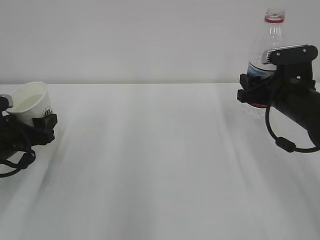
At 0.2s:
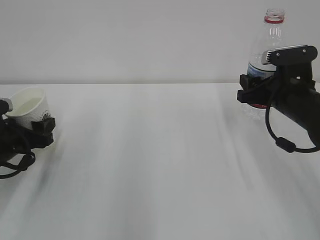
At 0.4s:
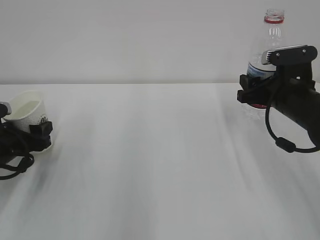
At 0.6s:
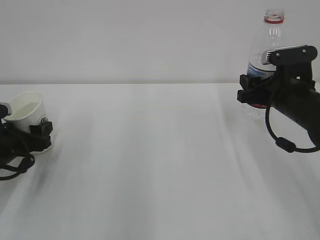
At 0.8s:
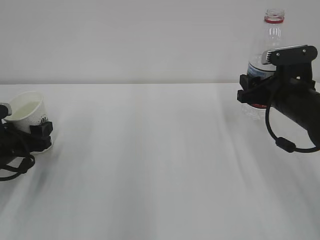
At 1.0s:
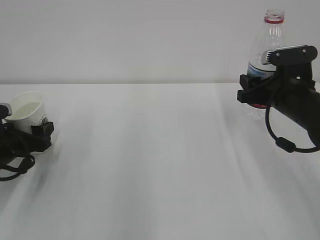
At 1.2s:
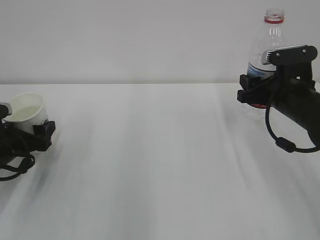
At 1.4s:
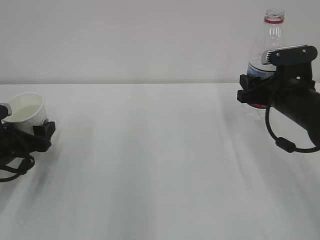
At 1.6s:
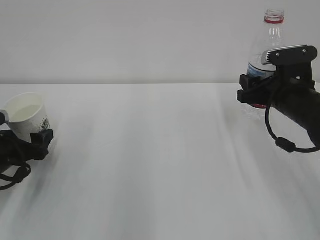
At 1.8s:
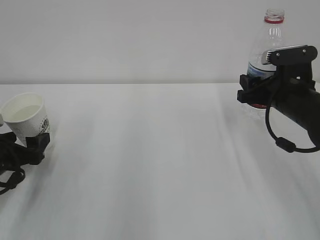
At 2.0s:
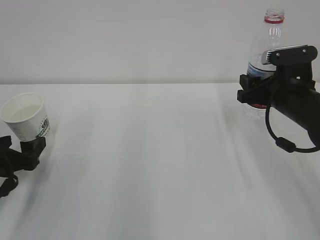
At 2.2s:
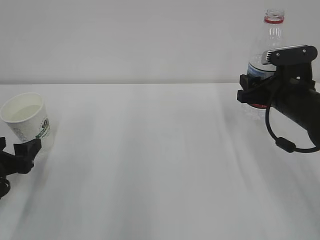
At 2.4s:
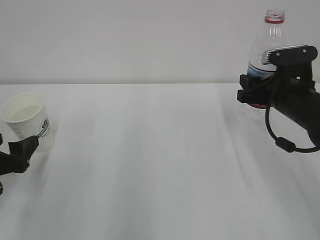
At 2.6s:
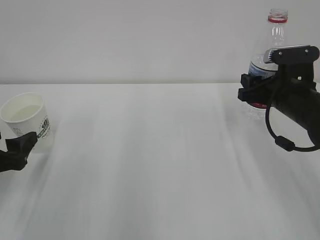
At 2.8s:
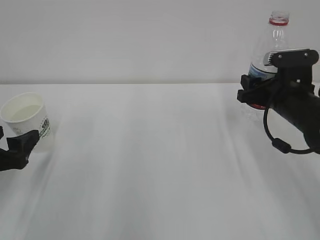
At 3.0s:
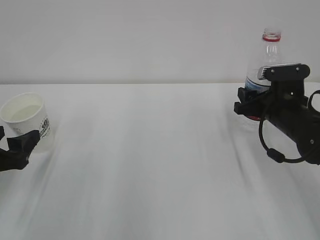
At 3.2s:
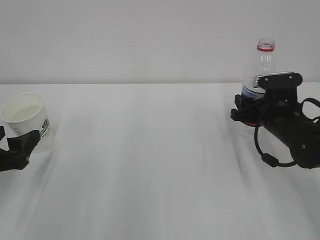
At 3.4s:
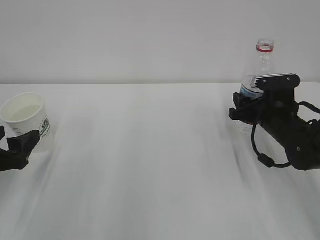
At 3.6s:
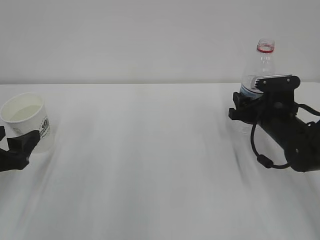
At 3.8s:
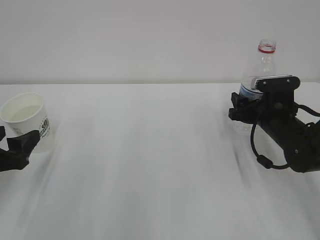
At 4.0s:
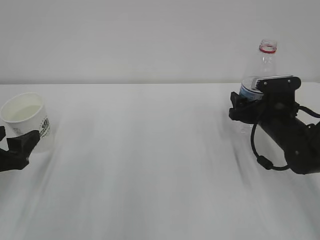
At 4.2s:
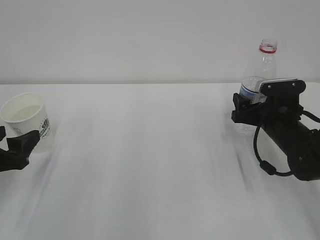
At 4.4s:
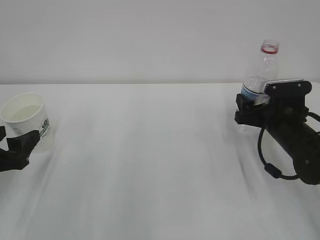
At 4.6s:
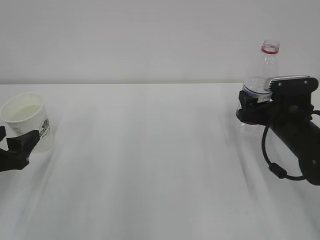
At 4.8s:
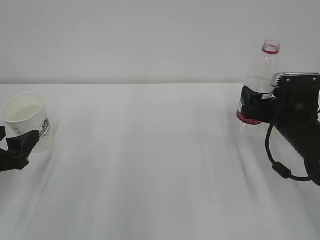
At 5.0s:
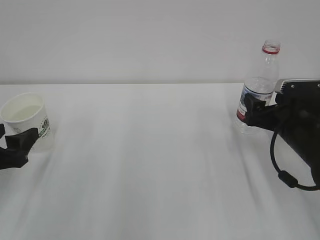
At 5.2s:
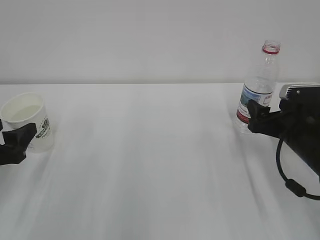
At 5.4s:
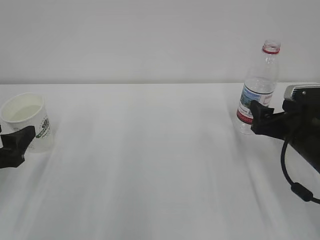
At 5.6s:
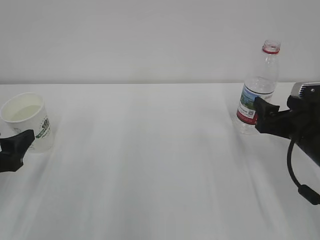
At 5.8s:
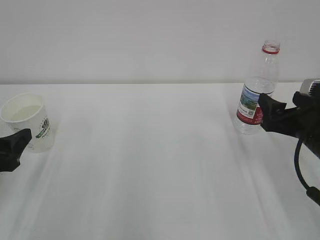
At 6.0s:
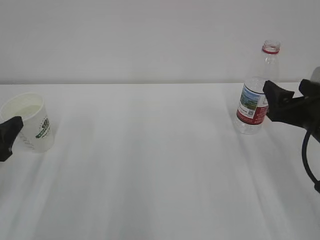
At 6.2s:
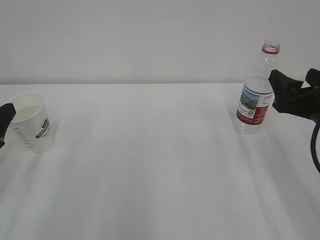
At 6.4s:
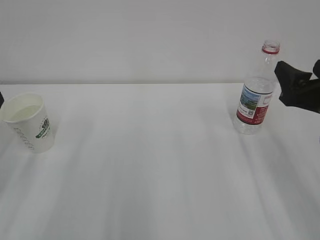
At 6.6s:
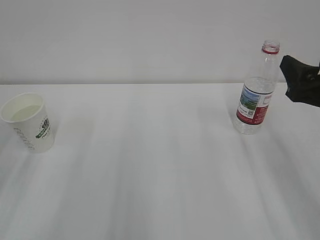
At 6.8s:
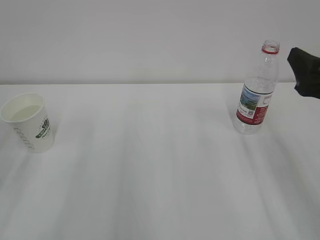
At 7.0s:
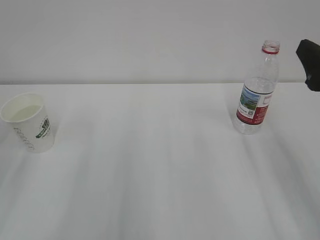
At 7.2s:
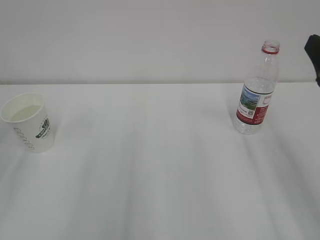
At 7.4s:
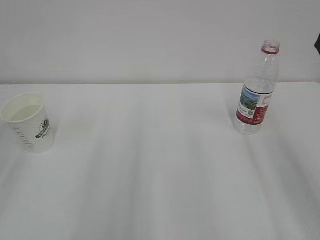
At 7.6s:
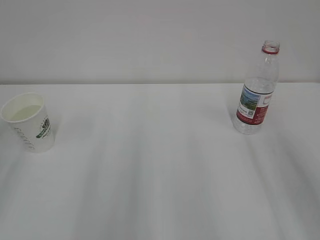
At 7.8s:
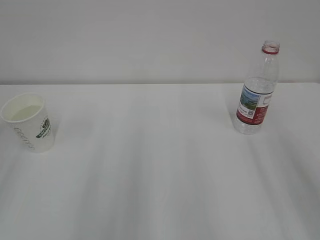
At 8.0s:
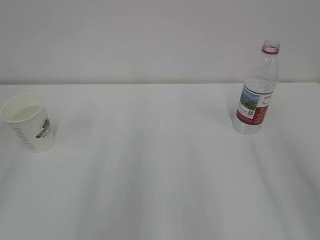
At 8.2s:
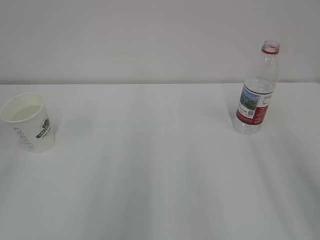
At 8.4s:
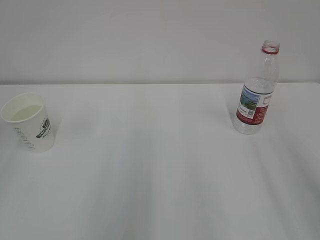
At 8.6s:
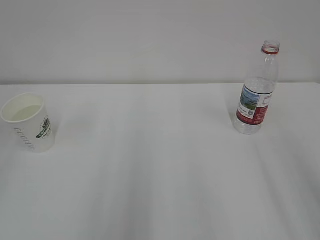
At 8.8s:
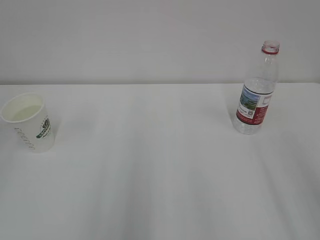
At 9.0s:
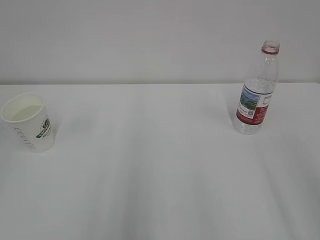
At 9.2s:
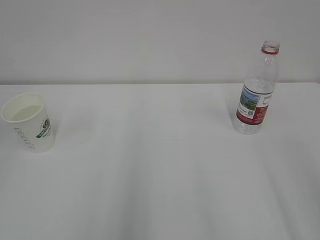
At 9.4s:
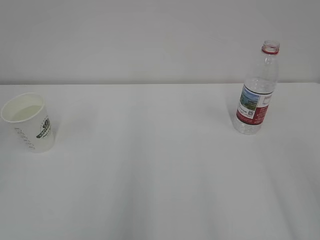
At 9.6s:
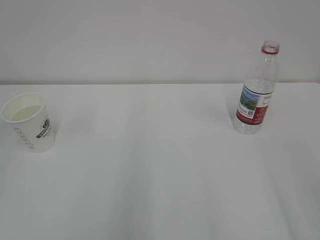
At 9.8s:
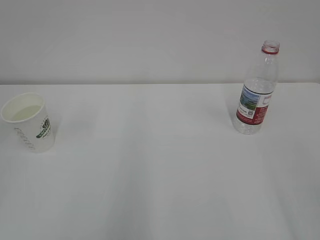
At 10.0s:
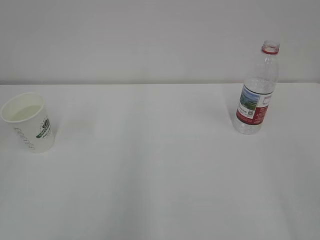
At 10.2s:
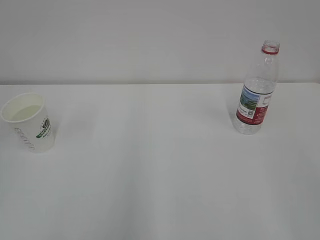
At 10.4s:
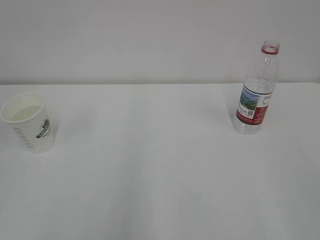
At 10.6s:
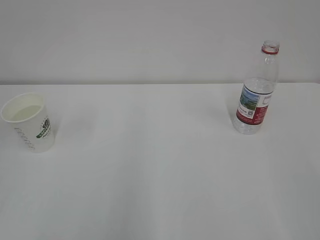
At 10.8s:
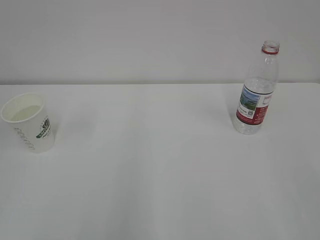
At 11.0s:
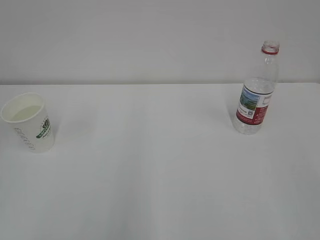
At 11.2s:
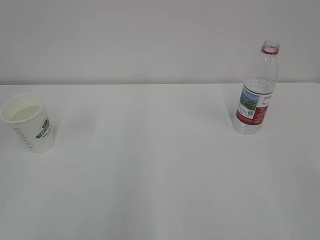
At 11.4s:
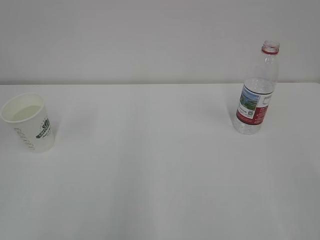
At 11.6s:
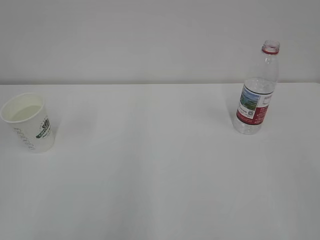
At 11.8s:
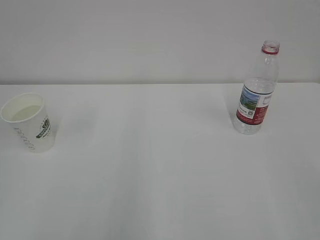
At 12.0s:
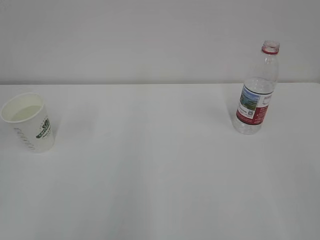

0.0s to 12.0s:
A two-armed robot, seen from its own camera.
0.0s to 1.6s: The left gripper opens.
1.6s to 3.0s: The left gripper travels backward by about 5 cm.
3.0s to 4.4s: The right gripper opens up.
4.4s to 6.0s: The right gripper moves backward and upward, approximately 10 cm.
6.0s to 7.6s: Both grippers travel together upward and backward, some 15 cm.

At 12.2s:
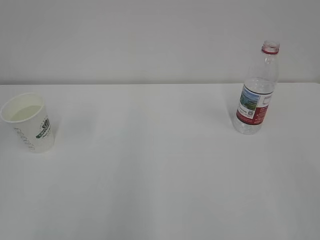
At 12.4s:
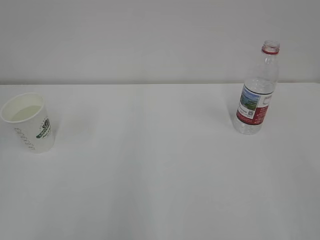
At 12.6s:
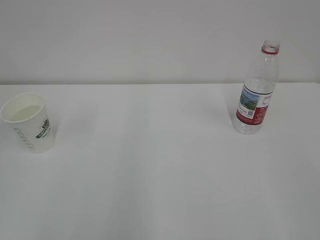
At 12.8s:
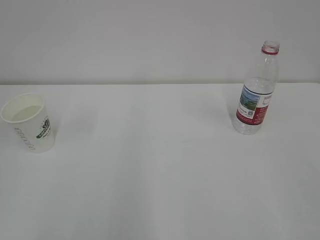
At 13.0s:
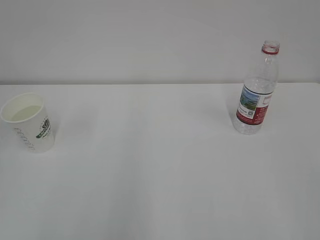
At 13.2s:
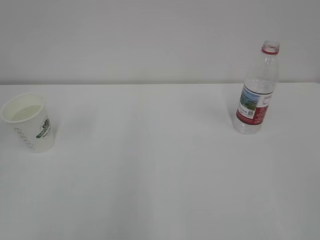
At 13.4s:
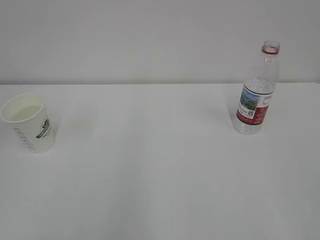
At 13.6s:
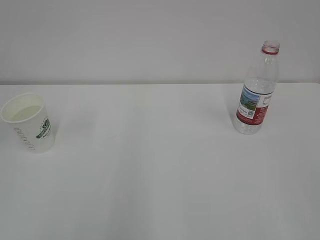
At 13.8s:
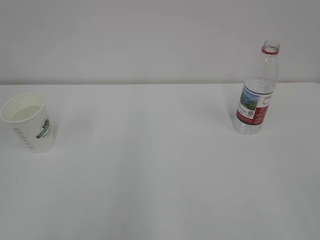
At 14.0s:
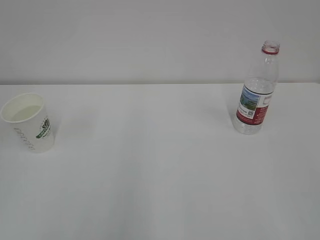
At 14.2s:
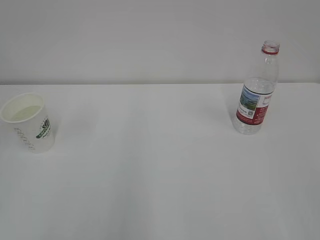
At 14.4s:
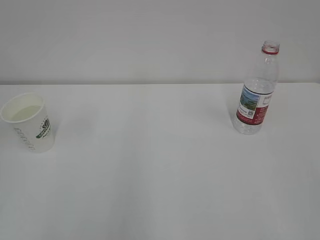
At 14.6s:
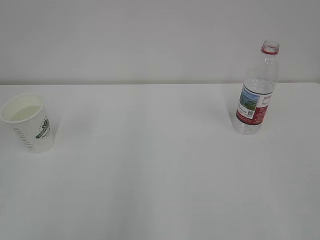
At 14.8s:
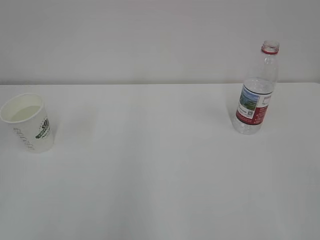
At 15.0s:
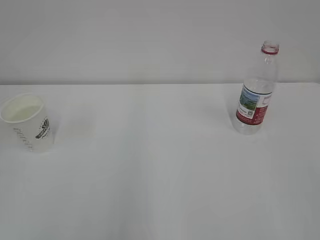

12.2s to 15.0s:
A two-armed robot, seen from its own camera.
13.6s to 15.0s: Neither gripper changes place.

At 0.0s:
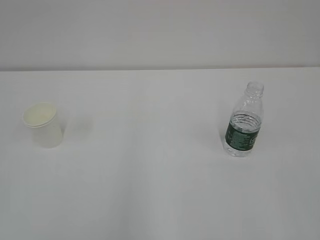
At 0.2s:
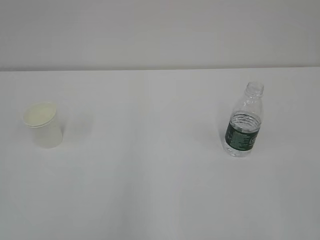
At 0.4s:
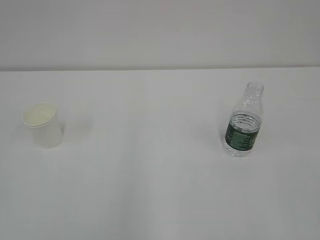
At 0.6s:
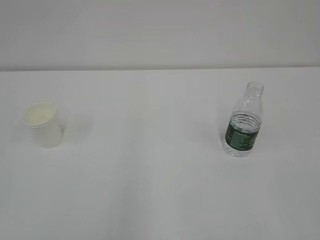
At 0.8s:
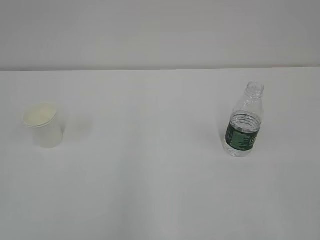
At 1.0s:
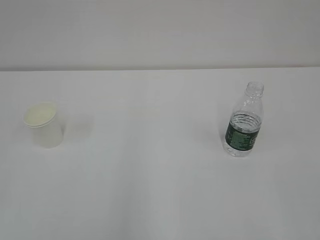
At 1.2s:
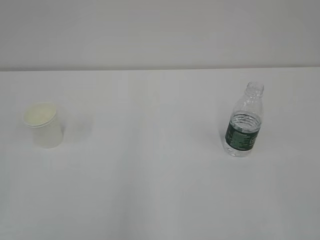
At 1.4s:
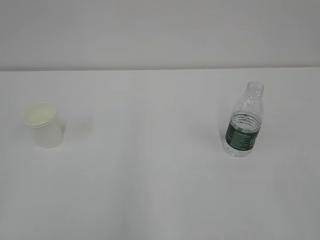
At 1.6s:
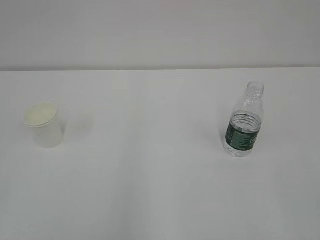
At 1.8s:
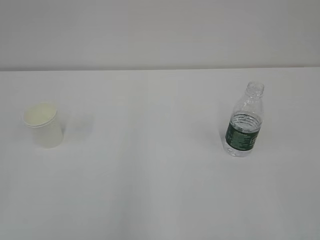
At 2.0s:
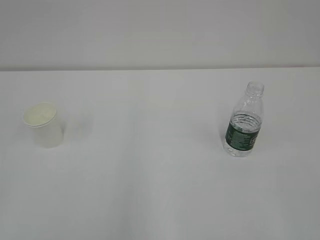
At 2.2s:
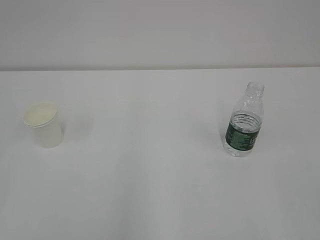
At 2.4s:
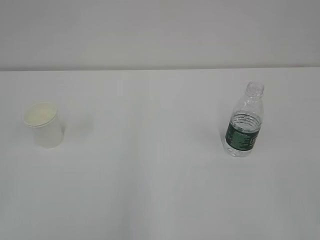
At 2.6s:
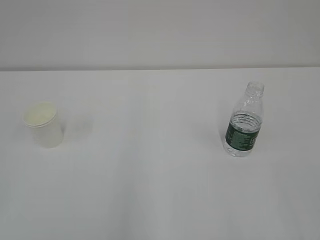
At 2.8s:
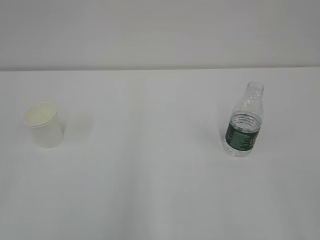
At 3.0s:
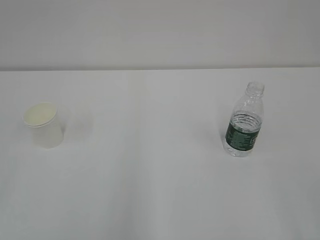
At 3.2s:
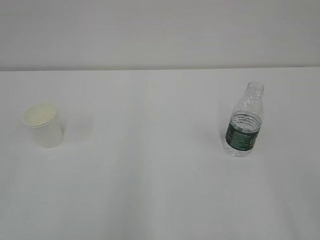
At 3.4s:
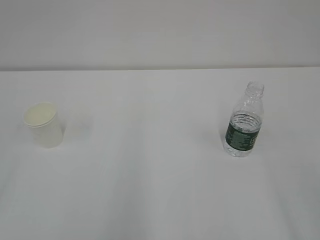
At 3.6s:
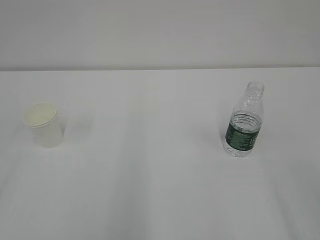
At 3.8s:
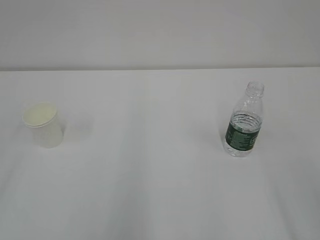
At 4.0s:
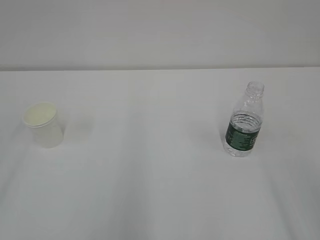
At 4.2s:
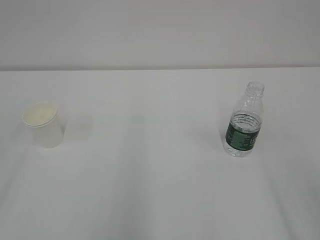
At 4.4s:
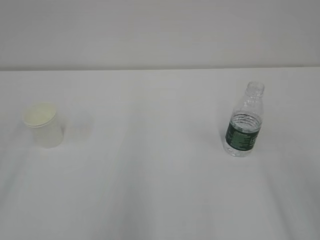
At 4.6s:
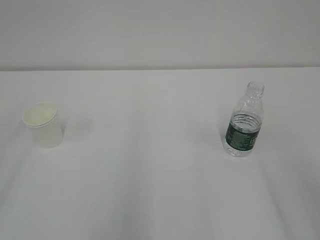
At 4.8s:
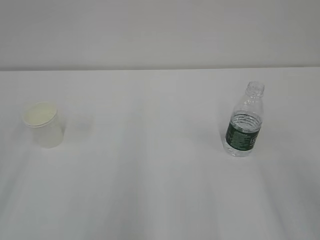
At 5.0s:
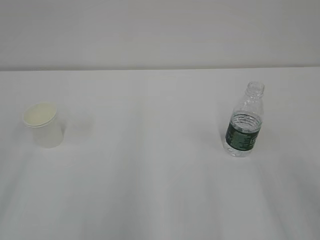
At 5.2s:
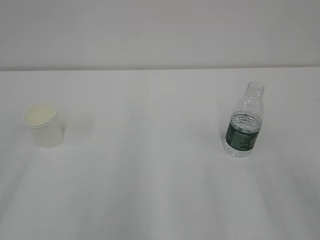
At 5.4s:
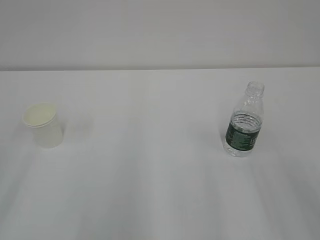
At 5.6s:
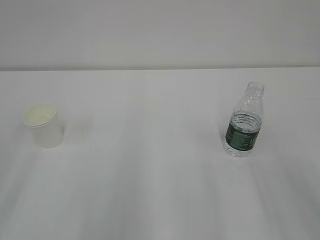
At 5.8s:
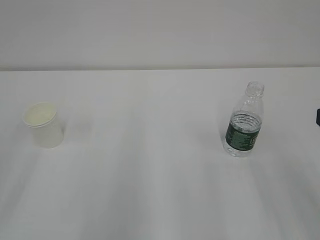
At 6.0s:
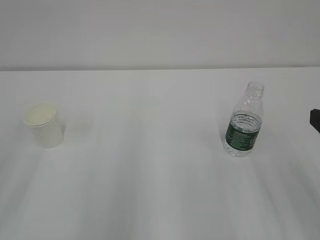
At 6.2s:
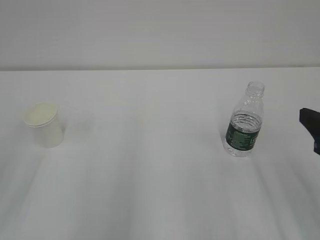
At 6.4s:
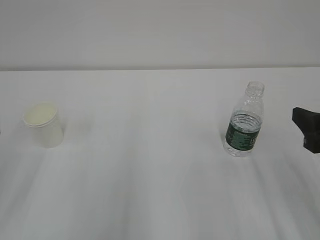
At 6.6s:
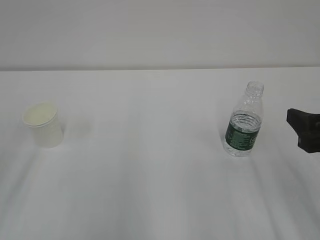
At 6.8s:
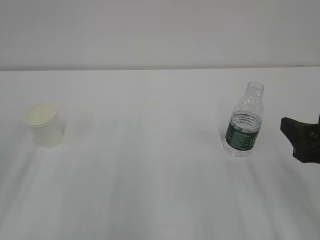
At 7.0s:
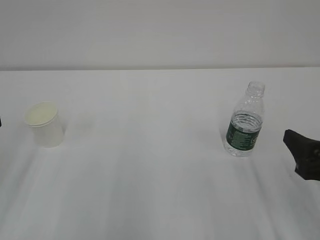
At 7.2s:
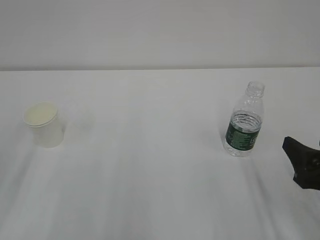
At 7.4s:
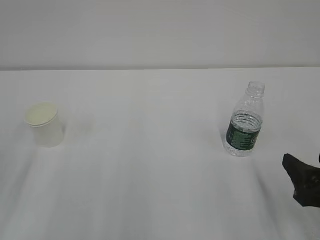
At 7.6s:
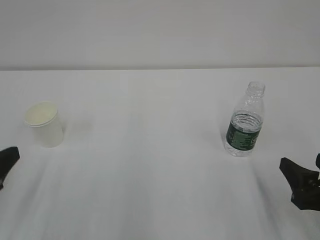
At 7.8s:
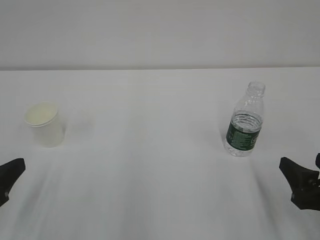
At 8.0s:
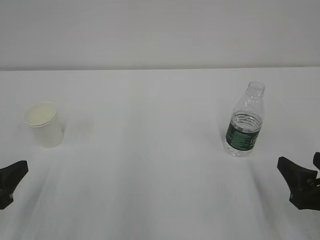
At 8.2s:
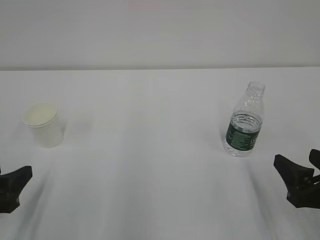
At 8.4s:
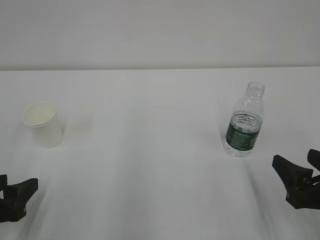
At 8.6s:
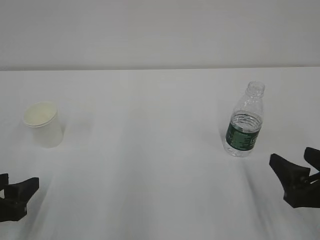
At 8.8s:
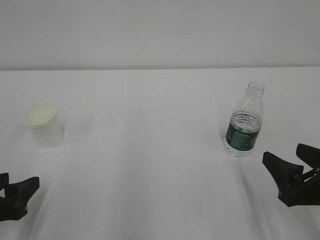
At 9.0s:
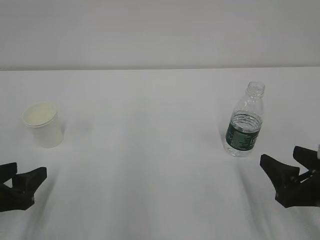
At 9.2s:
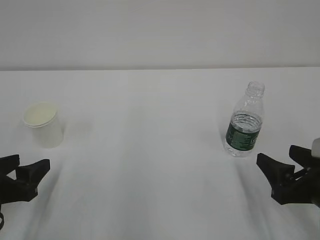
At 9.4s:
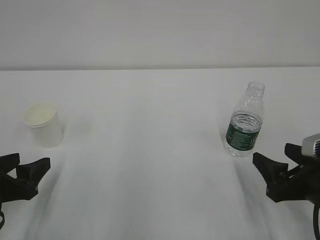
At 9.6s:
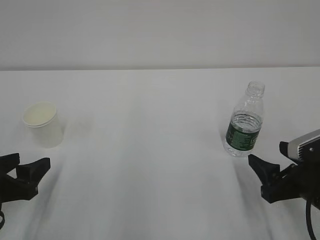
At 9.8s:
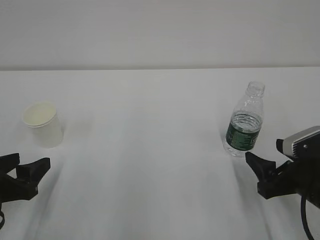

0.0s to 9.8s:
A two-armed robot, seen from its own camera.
5.6s to 7.0s: The right gripper heads downward and forward, covering roughly 10 cm.
7.0s to 8.4s: The left gripper goes approximately 10 cm downward.
8.4s to 9.8s: The right gripper ends up about 5 cm from where it was.
